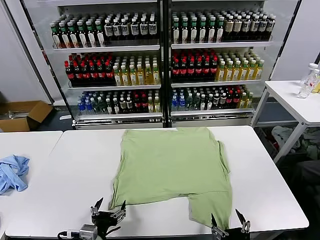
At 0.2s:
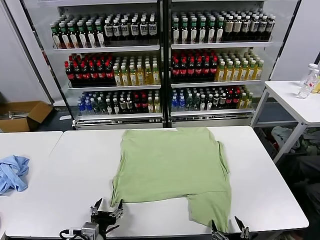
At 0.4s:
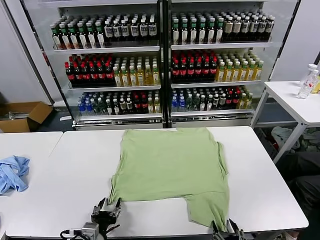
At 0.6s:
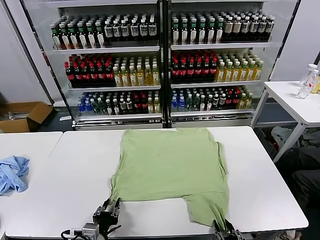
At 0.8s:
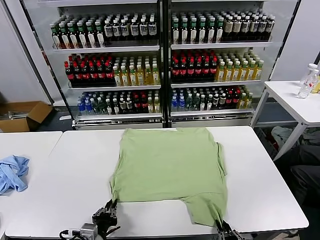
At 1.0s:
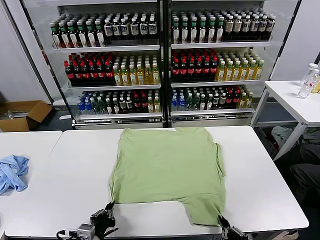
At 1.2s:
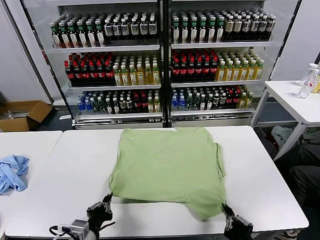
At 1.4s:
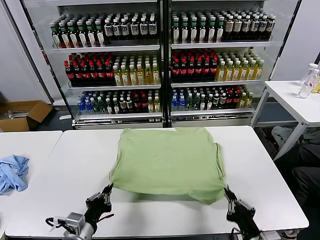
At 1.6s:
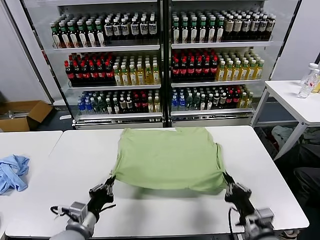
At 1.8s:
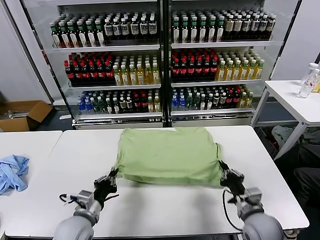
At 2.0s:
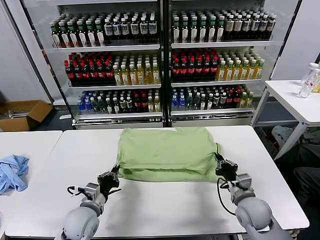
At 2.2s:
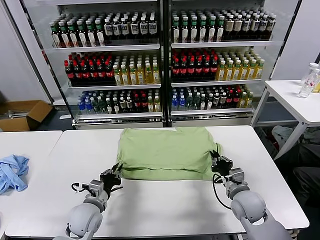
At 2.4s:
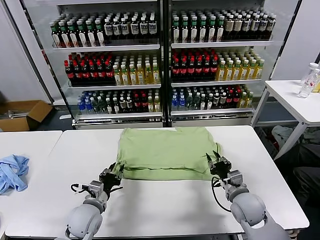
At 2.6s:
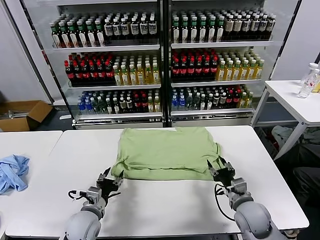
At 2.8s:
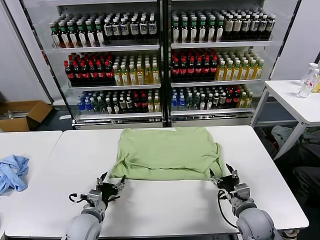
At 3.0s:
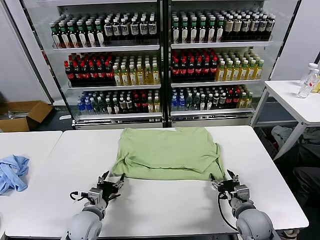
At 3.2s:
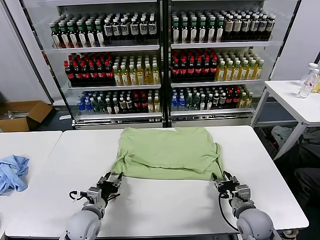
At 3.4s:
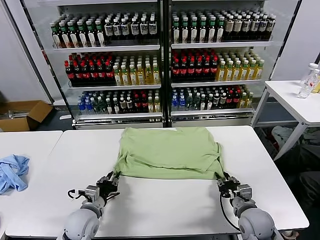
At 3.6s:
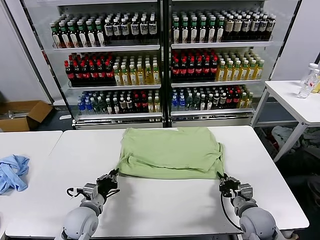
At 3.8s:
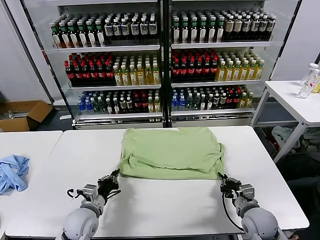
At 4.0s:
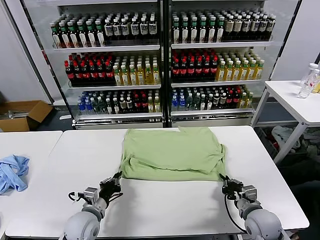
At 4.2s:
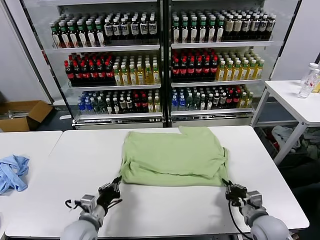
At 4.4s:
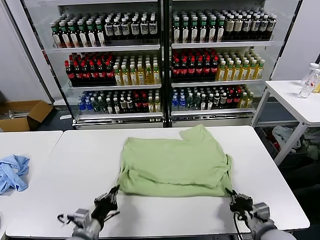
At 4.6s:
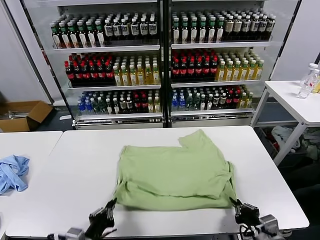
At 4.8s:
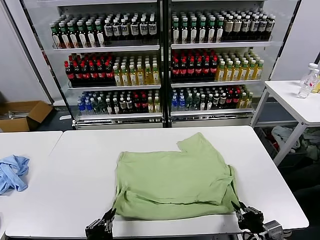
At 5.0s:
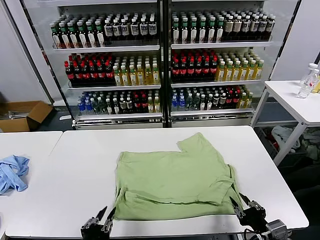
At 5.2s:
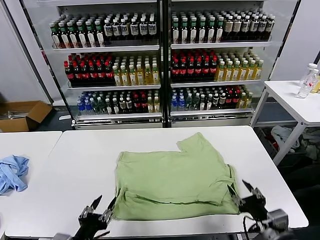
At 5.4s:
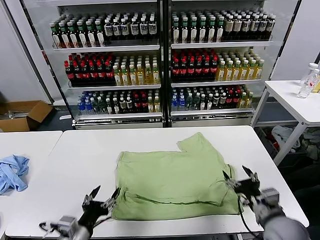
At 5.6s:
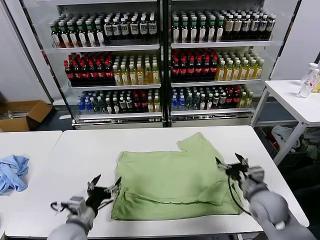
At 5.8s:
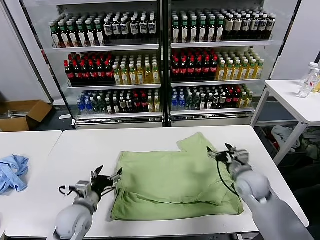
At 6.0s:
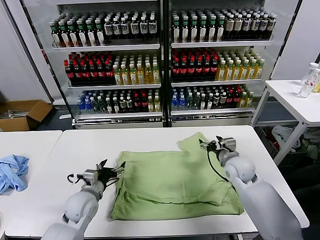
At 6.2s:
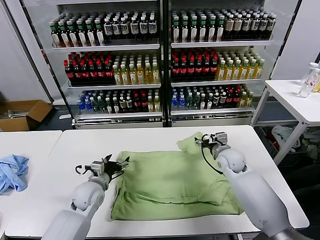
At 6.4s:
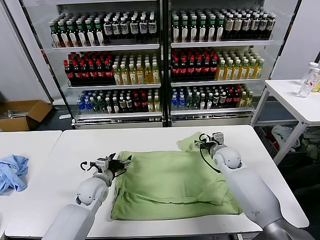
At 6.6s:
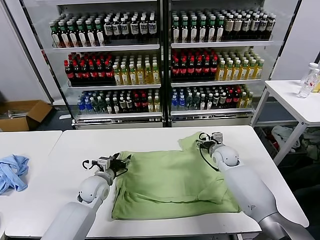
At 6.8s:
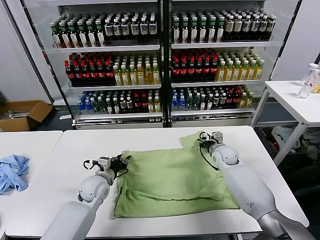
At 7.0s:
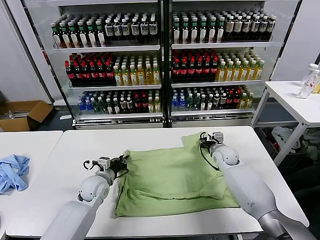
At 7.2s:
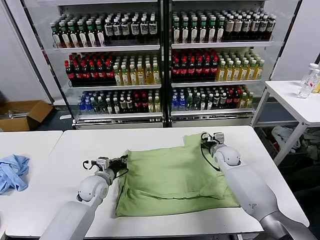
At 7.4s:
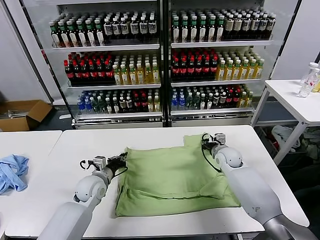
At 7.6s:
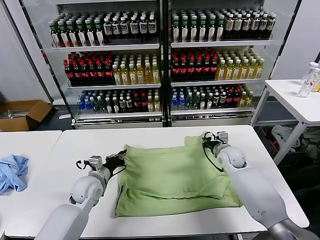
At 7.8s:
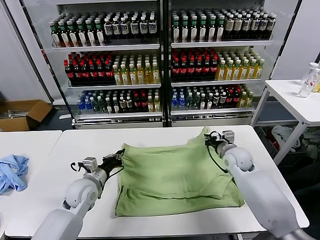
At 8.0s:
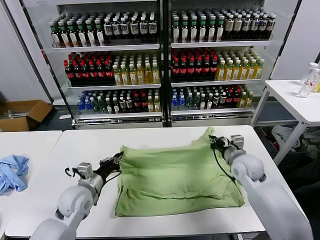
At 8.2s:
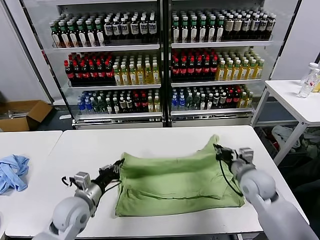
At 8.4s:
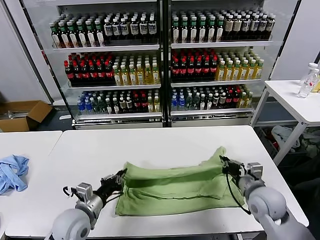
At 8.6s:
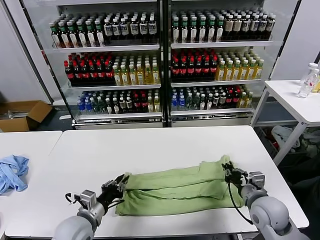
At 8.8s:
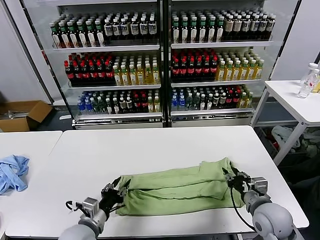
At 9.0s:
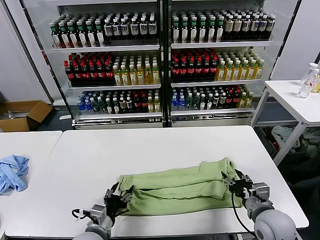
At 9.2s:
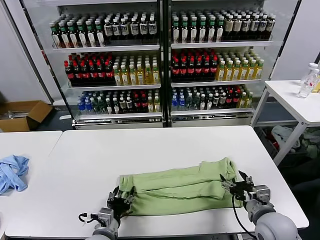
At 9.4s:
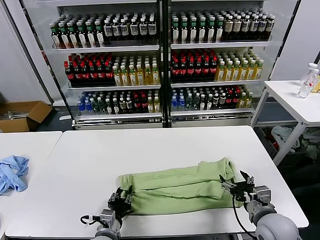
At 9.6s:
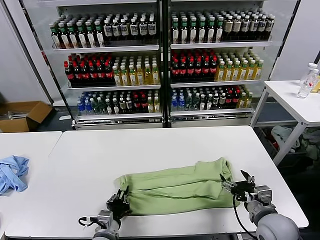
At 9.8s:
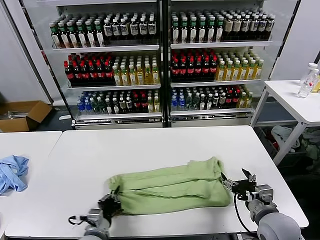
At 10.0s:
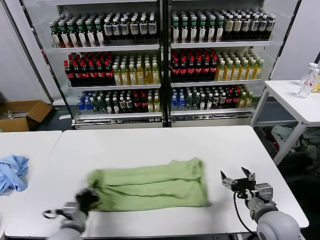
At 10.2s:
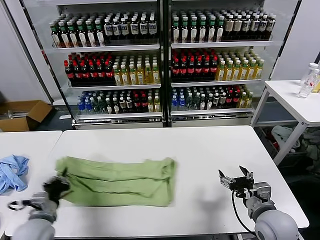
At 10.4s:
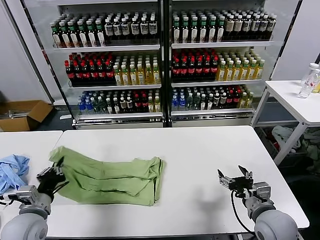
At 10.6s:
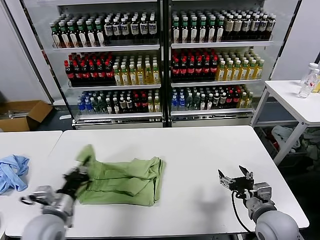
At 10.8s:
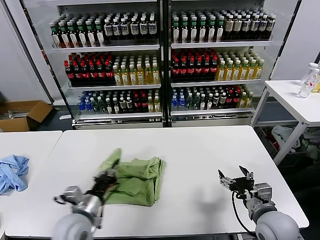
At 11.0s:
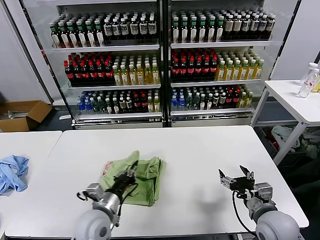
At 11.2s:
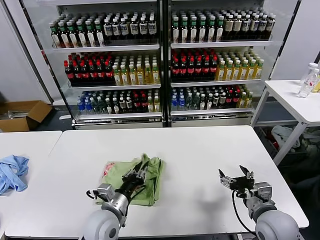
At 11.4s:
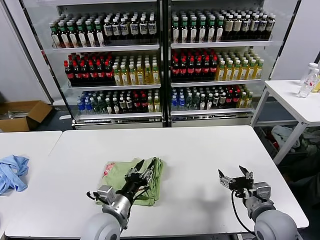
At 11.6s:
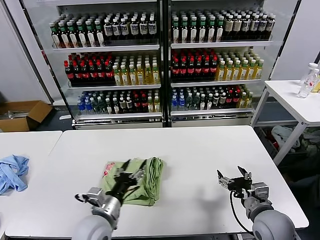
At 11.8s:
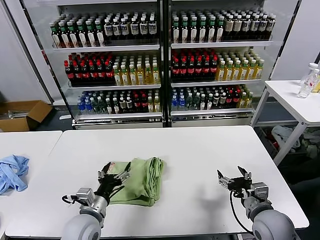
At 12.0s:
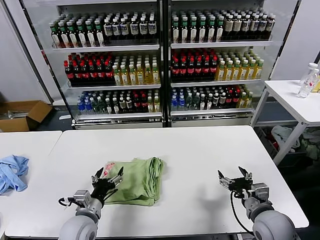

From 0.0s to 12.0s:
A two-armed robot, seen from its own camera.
Task of the whole recording: fold and organize the clothes.
Step, from 0.0s to 1.0s: use both grippers simultaneously to clamp the lower edge of the clothing fabric.
Step, from 1.2s to 2.6s: use both grippers to drag the lower edge of the fabric forward and fold it over the upper edge.
Step, from 2.8s to 4.8s: Drag the clothes downward with both gripper.
Step, from 5.2s to 7.2s: use both grippers simultaneously to clamp the upper edge of the clothing fabric.
Step, from 7.4s to 8.6s: use both grippers to drag the upper edge of the fabric backward and fold it over the lower edge.
Step, from 9.0s to 9.6s: use the left gripper to clamp the left edge of the fabric.
Step, from 9.8s to 11.2s: use the left gripper to drag the left edge of the fabric to the left and folds it over the right edge.
From 1.6s to 3.0s: The right gripper opens up; the left gripper shifts approximately 10 cm forward and downward, and opens its fingers.
From 3.0s to 4.4s: Both grippers move backward, approximately 10 cm. The left gripper closes, while the right gripper closes.
From 4.4s to 6.0s: The left gripper travels forward by about 15 cm, and opens its fingers; the right gripper is displaced forward by about 30 cm, and opens up.
From 6.0s to 7.6s: The left gripper shifts about 5 cm forward, and closes its fingers, while the right gripper closes up.
From 7.6s to 9.0s: Both grippers move backward, some 20 cm. The left gripper opens its fingers. The right gripper opens up.
From 9.0s to 10.4s: The left gripper travels to the left and upward by approximately 15 cm, and closes.
From 10.4s to 12.0s: The left gripper shifts roughly 15 cm to the right and downward, and opens its fingers.

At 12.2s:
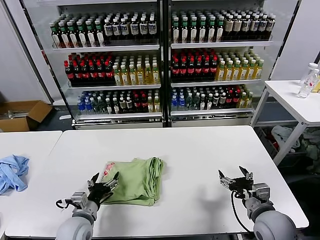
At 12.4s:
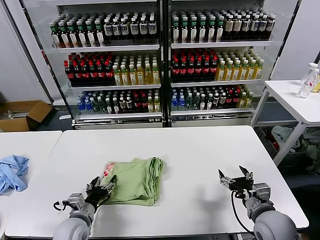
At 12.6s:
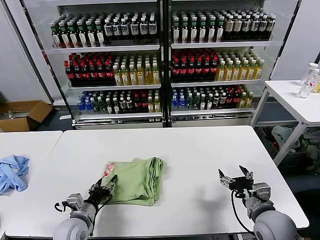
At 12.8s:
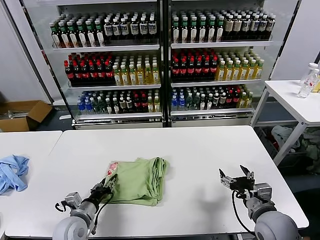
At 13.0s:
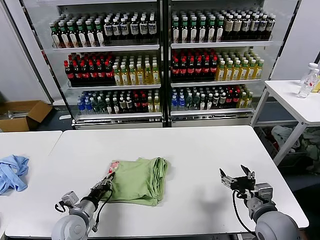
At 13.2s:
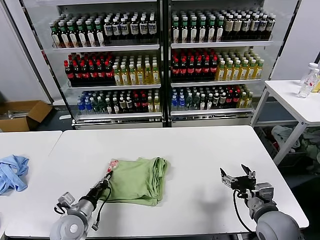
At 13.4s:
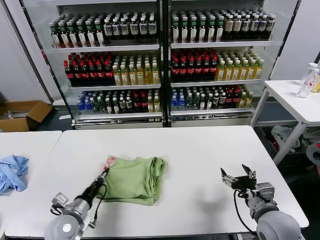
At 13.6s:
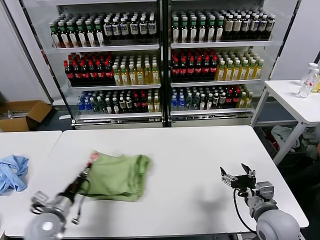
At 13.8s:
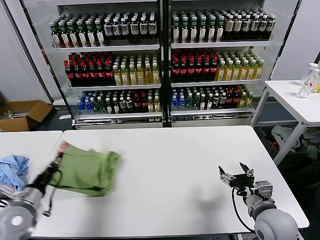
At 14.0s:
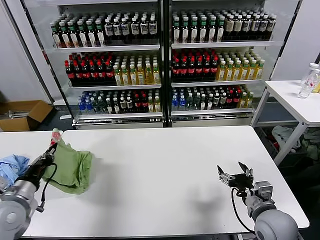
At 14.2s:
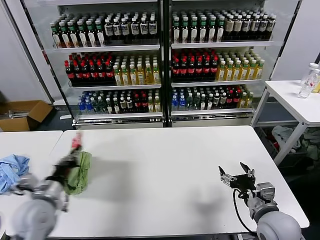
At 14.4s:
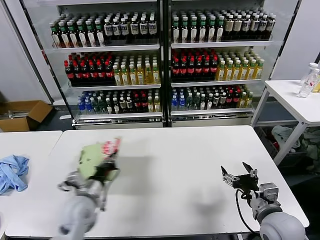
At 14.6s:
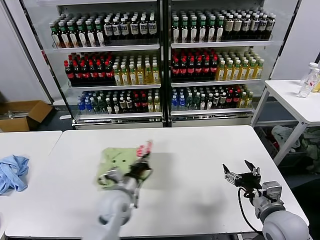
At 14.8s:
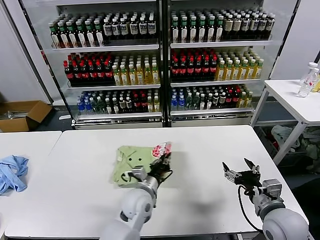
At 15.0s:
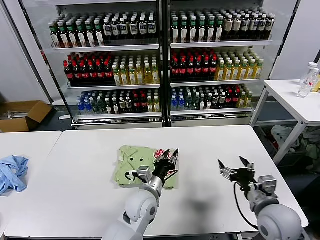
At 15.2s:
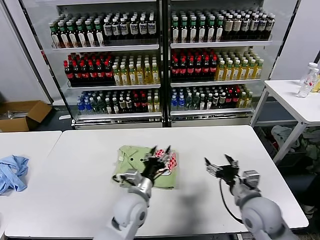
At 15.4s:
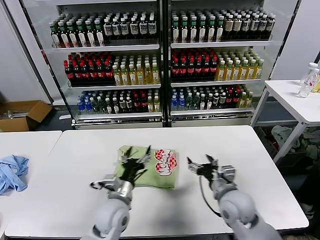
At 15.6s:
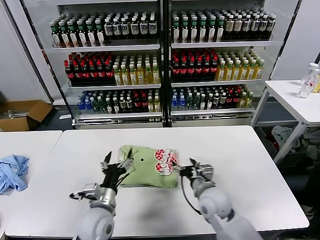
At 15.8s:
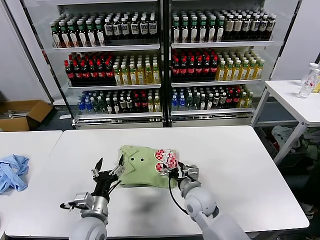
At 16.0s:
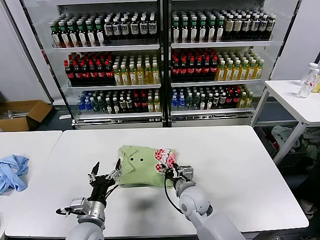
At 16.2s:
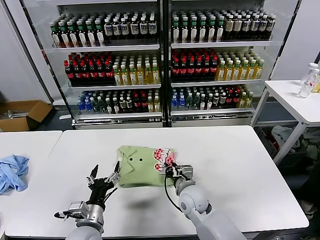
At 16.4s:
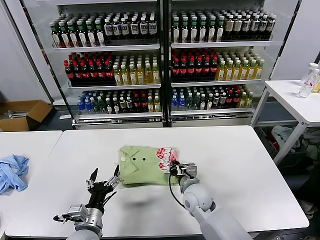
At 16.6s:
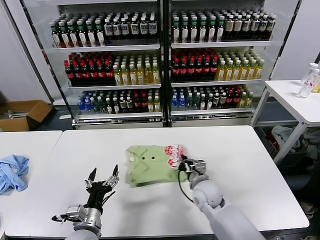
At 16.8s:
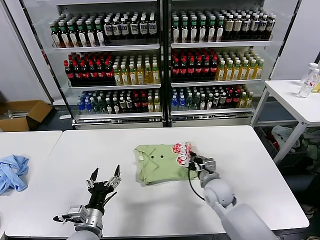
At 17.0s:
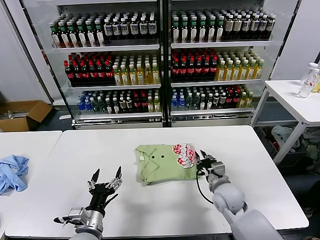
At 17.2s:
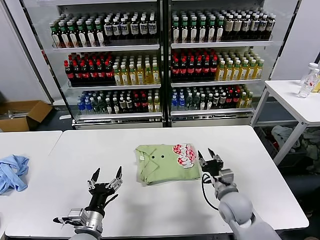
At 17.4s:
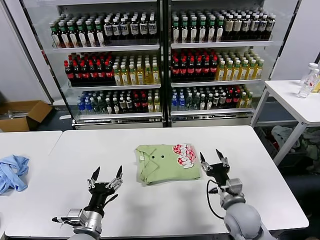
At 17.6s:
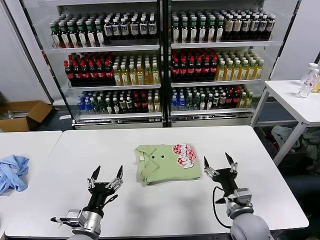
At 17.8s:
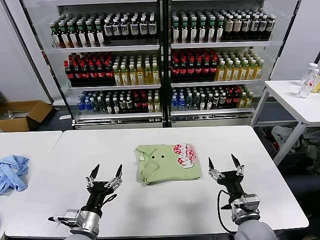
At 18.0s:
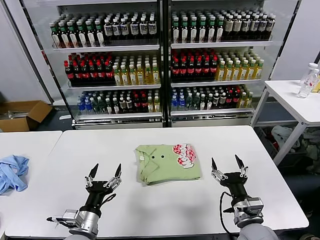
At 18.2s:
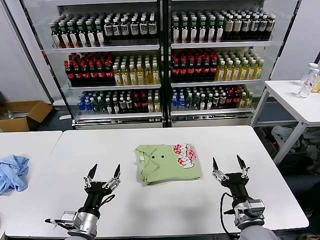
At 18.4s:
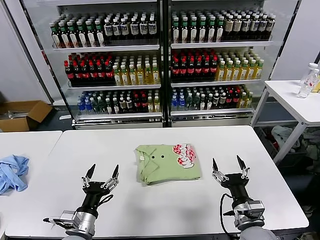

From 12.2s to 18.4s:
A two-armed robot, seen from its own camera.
Task of the whole recording: fold and organize the clothes.
Step, from 12.2s to 14.8s: Flip the folded clothes over with left gripper.
Step, from 15.2s to 16.8s: Drag the clothes to the center of the table.
From 12.2s to 13.8s: The left gripper is displaced to the left and upward by about 15 cm, and closes its fingers.
From 13.8s to 15.4s: The right gripper is displaced to the left and forward by some 10 cm. The left gripper is displaced to the right by some 25 cm, and opens its fingers.
From 15.4s to 16.8s: The left gripper goes approximately 10 cm to the left and backward. The right gripper travels forward and downward by roughly 10 cm, travels to the left and back again, approximately 10 cm each way, and closes up.
From 16.8s to 18.4s: The right gripper travels backward by some 15 cm, and opens up.
